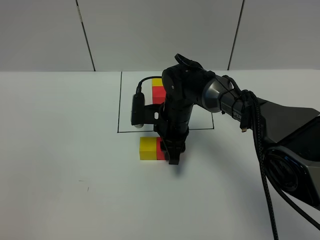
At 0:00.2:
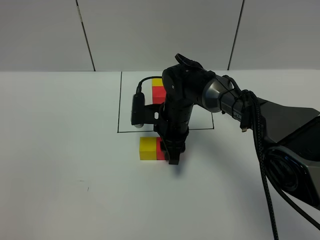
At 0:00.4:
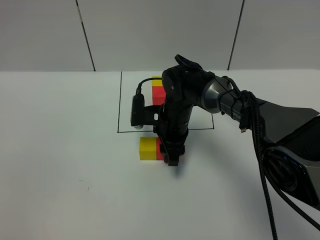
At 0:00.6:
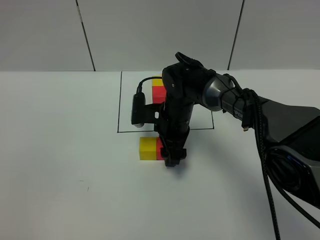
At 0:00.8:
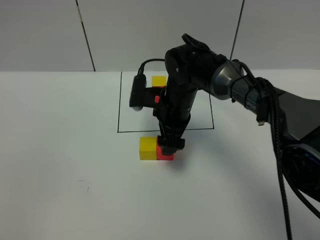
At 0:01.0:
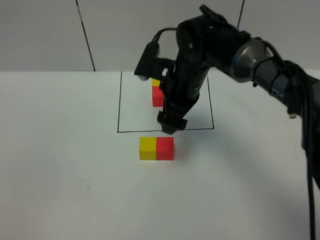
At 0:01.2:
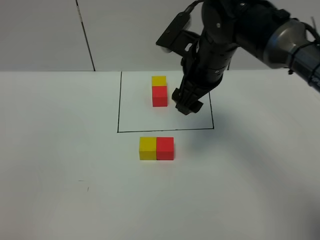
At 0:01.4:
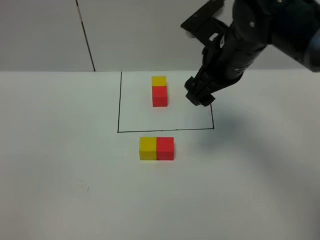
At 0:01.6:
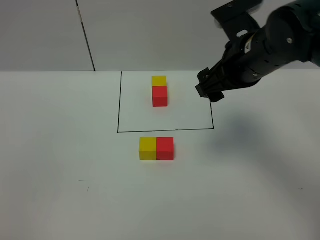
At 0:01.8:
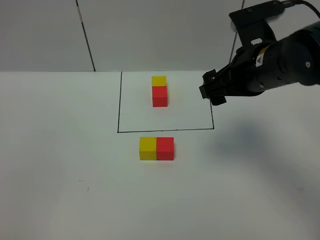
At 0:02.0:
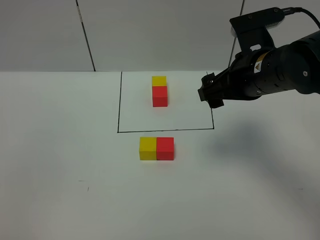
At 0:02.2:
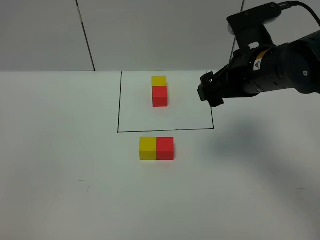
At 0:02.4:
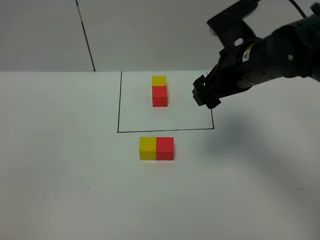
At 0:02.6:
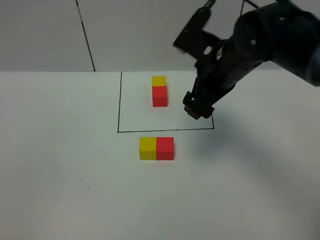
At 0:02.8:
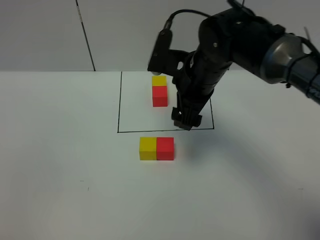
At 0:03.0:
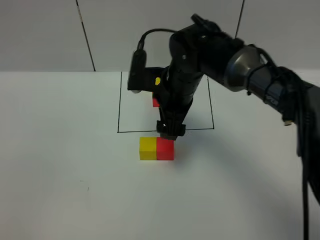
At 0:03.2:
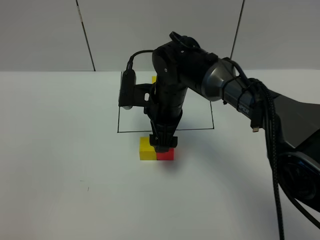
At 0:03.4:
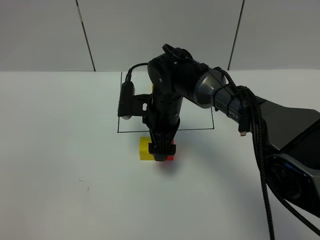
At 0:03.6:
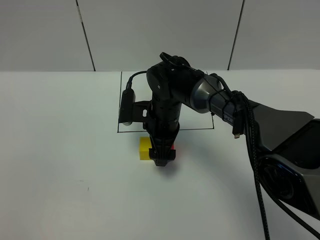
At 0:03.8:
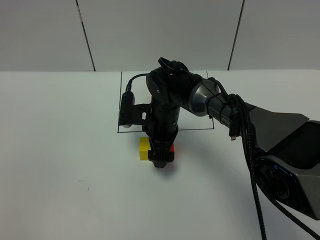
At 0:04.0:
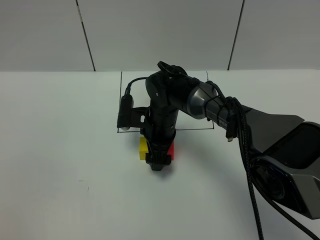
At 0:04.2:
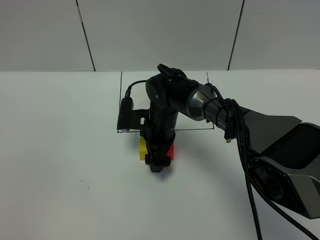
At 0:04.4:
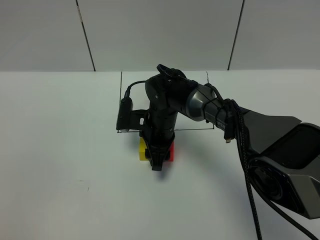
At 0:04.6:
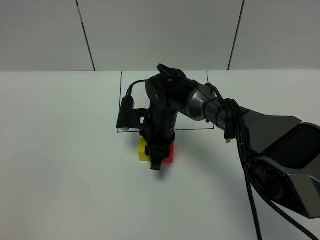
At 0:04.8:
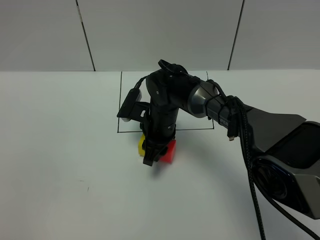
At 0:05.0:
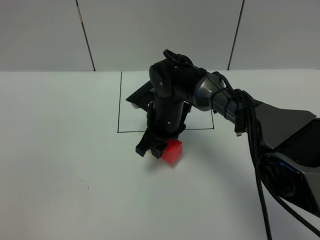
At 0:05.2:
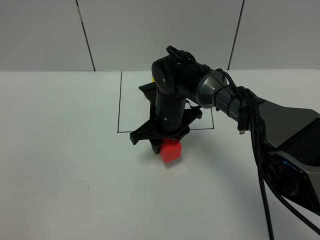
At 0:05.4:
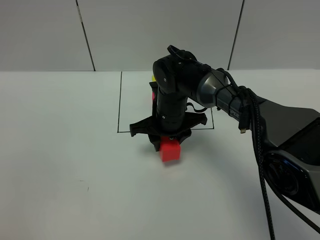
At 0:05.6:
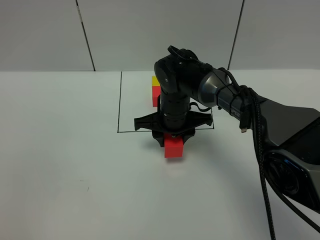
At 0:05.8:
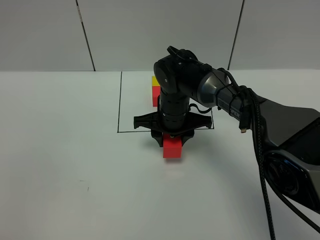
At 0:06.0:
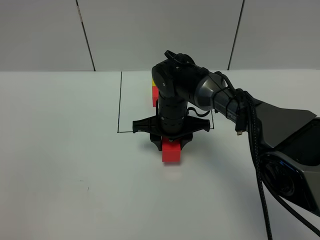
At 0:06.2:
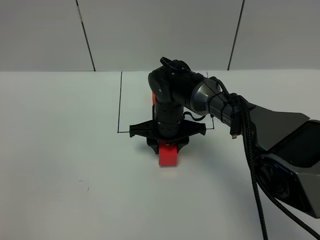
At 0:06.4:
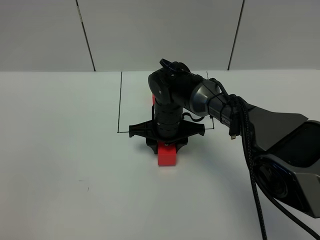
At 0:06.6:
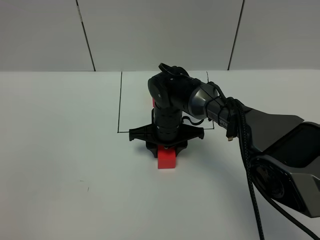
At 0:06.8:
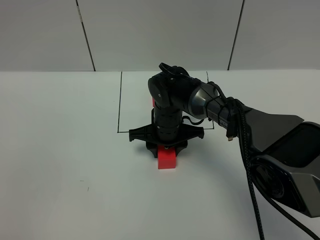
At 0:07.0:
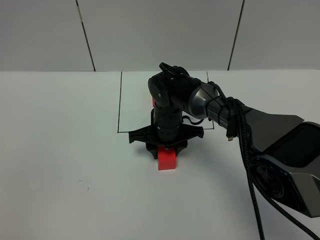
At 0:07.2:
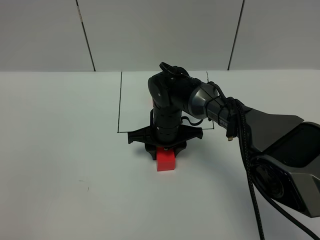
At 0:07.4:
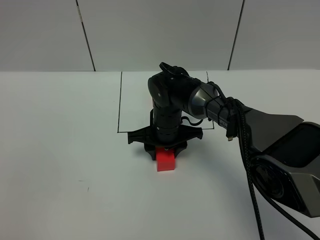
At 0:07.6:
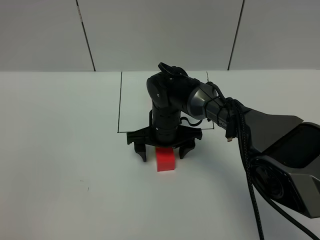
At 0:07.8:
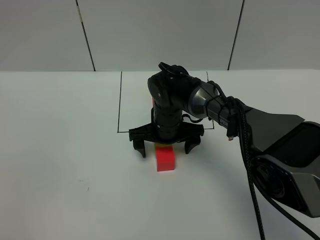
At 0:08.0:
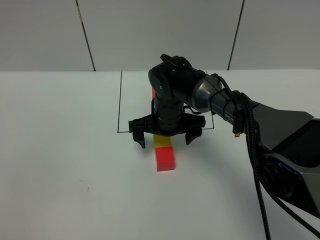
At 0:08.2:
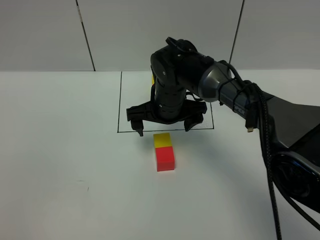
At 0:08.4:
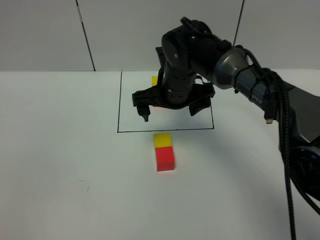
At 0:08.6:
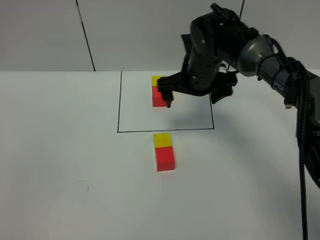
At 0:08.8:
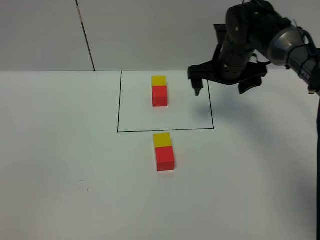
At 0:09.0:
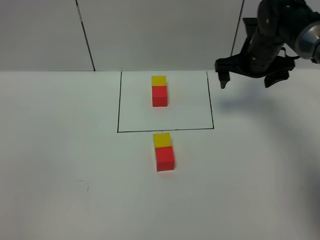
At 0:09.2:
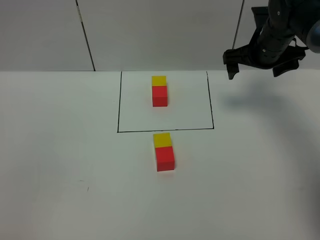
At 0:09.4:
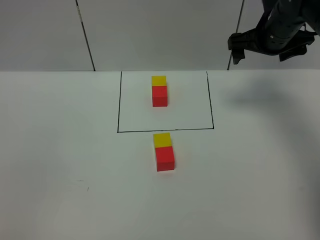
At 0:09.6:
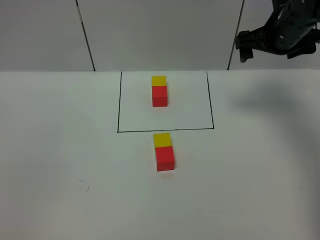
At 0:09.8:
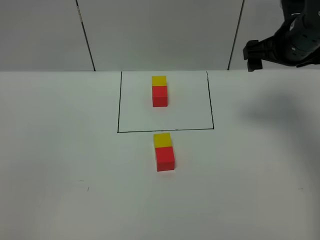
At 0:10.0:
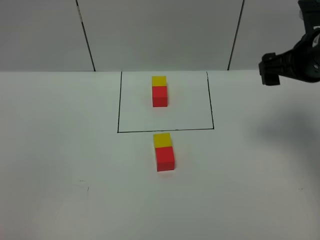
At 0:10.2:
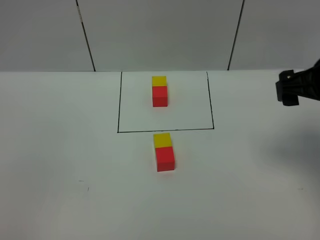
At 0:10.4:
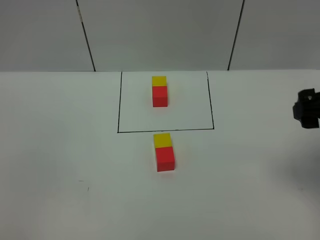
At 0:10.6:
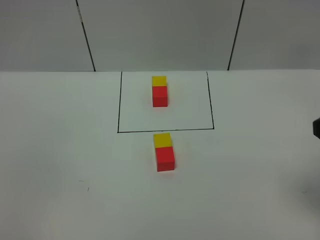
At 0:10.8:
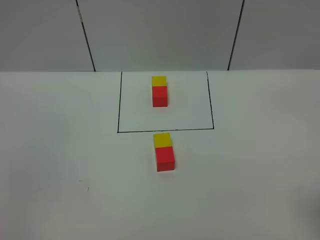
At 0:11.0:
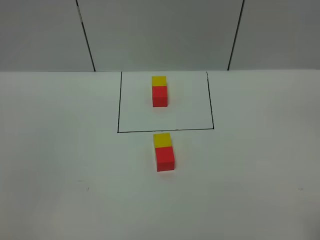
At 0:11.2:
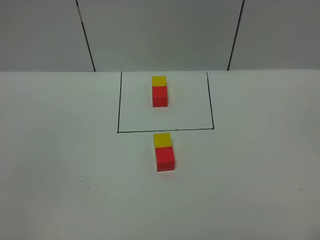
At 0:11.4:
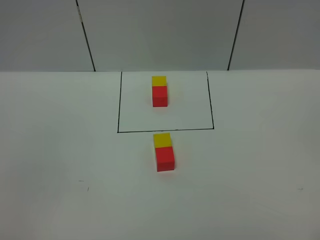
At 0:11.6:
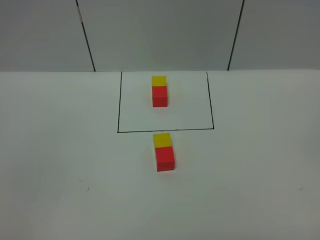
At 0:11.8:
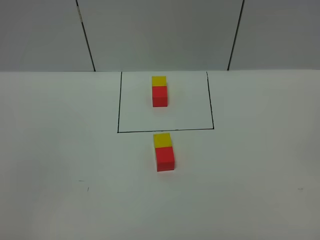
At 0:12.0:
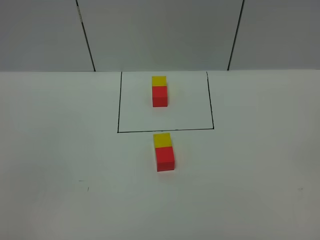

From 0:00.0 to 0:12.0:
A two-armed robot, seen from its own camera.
Task of the whole recording: According to the building block template in front, assemble the scattered blocks together.
Step, from 0:01.0 to 0:07.8: Adjust the pose of the building blocks.
From 0:00.0 to 0:01.6: The right gripper travels upward and to the right by approximately 20 cm, and opens up.
From 0:01.6 to 0:03.0: The right gripper goes approximately 15 cm to the left and downward.
From 0:03.0 to 0:04.4: The right gripper shifts roughly 10 cm downward, and closes its fingers.
From 0:06.0 to 0:07.6: The right gripper opens its fingers.
From 0:07.6 to 0:09.0: The right gripper heads to the right, upward and forward, covering about 25 cm.
From 0:09.0 to 0:10.4: The right gripper shifts approximately 25 cm backward and upward.
From 0:10.4 to 0:12.0: The right gripper shifts about 25 cm backward.

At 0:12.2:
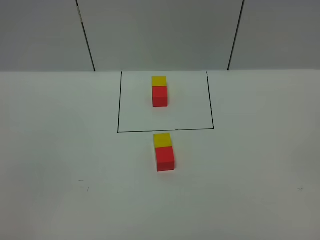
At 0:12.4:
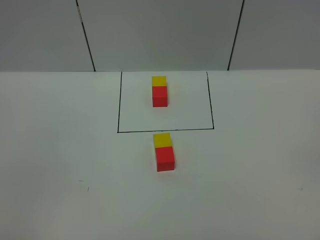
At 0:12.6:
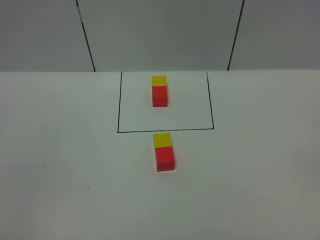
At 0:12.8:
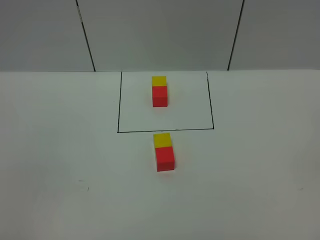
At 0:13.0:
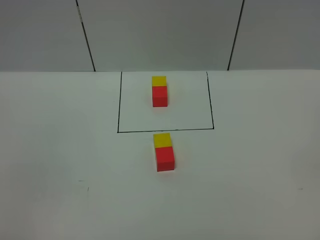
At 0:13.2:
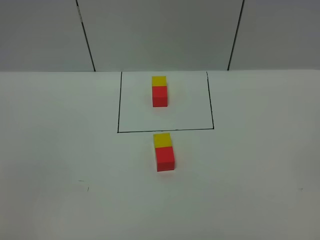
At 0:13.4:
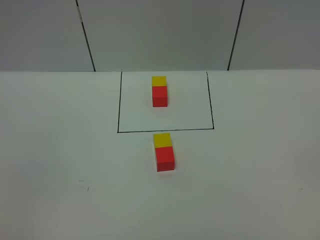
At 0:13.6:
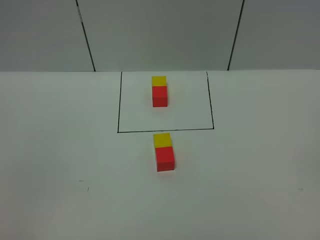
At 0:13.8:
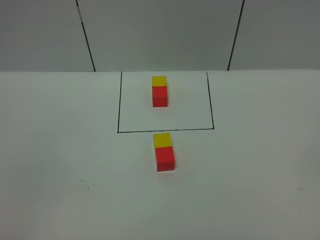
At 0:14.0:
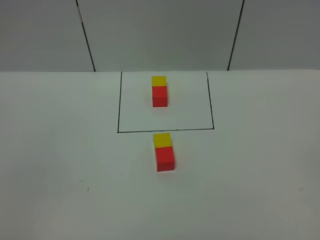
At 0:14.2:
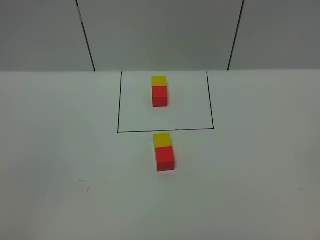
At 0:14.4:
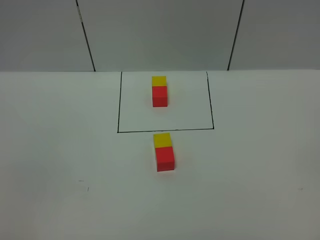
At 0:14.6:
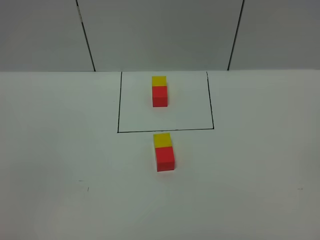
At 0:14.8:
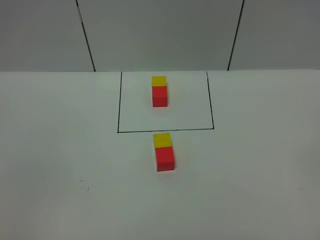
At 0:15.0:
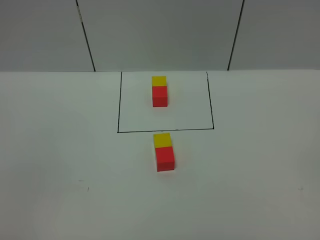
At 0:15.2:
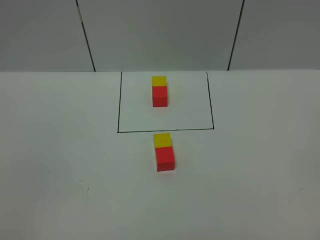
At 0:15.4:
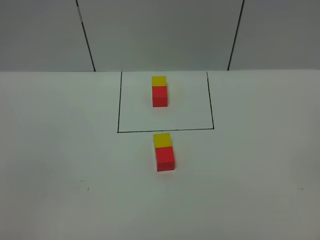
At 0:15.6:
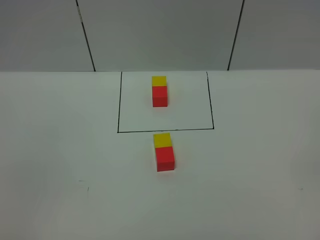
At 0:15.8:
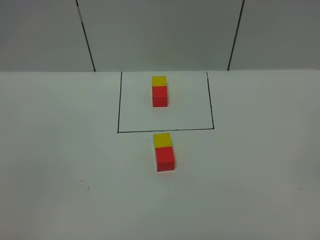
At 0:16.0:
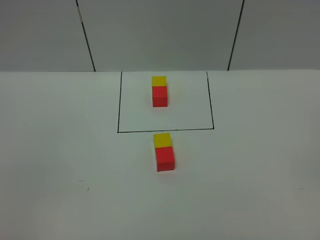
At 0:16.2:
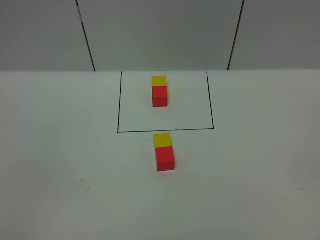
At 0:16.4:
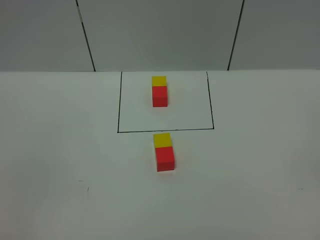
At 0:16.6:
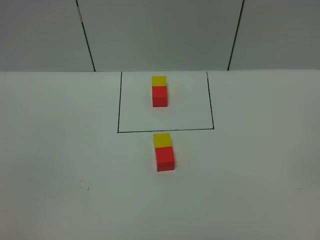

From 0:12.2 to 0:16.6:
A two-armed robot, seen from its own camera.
Task of the whole recording: According to the building block template in front, assemble the scattered blocks together.
From 0:13.6 to 0:15.2: Both grippers stay about where they are.
